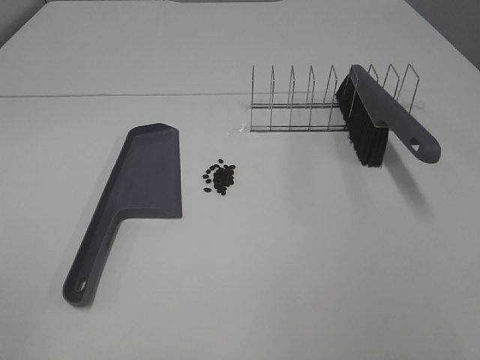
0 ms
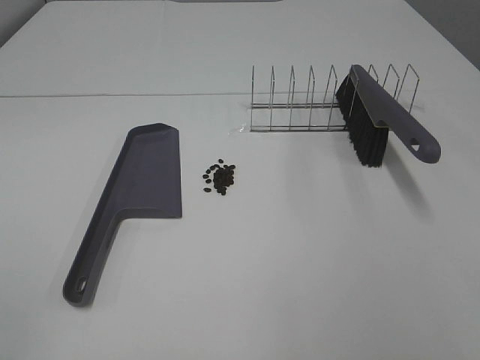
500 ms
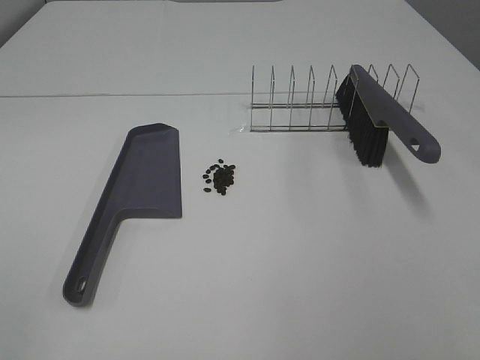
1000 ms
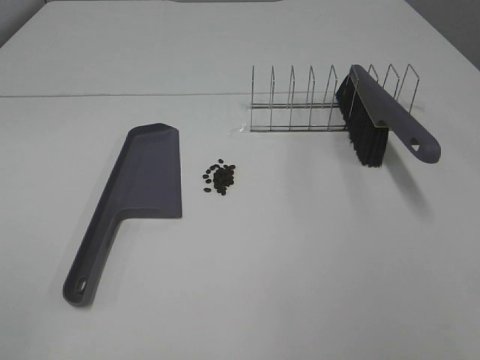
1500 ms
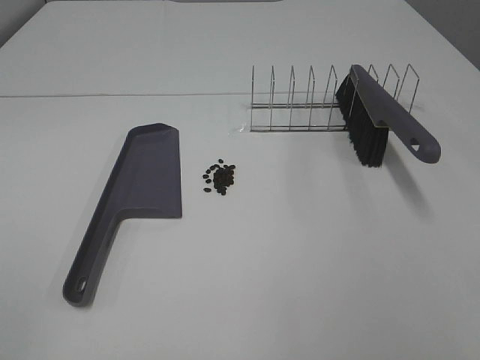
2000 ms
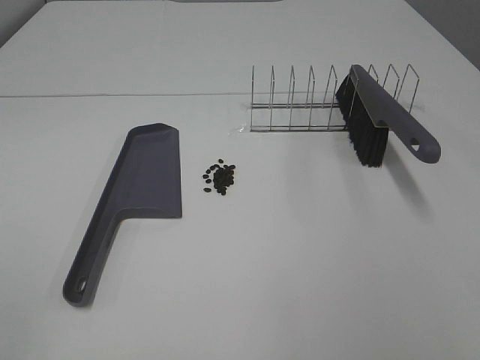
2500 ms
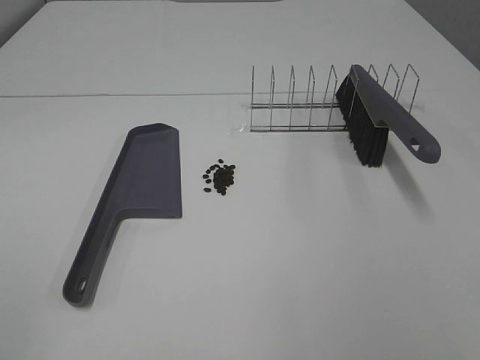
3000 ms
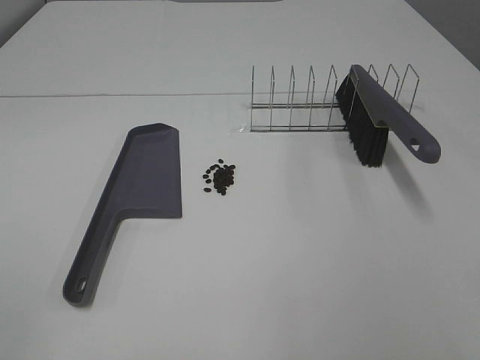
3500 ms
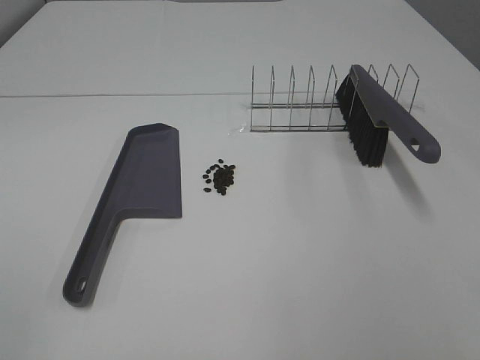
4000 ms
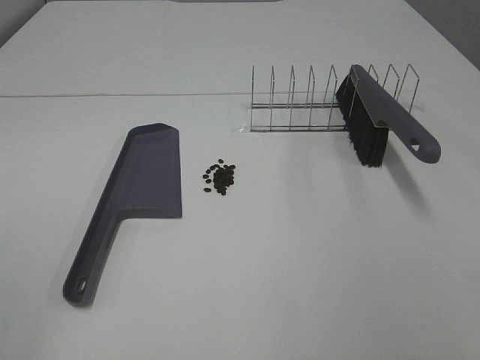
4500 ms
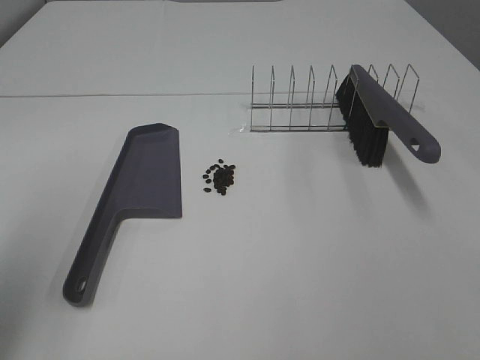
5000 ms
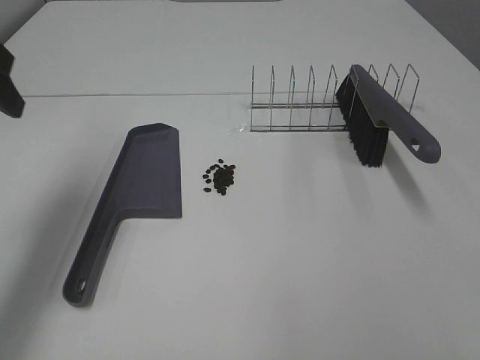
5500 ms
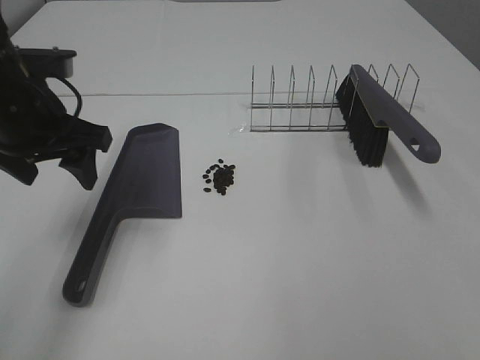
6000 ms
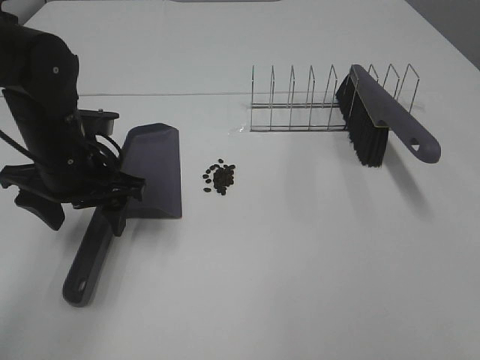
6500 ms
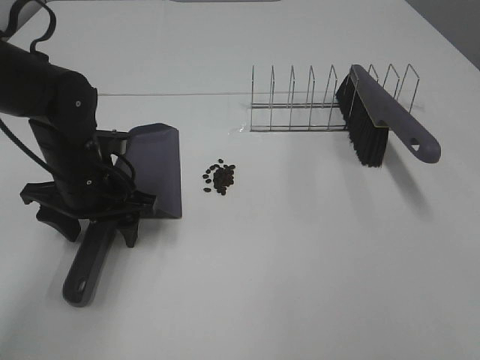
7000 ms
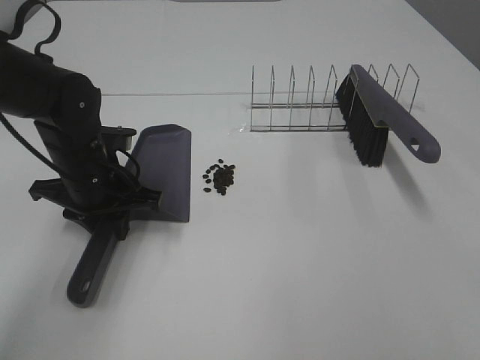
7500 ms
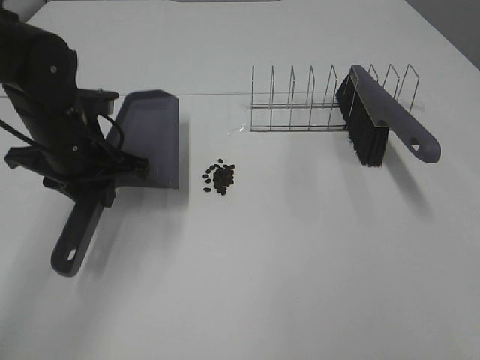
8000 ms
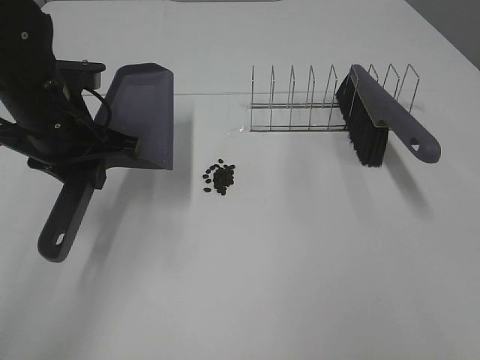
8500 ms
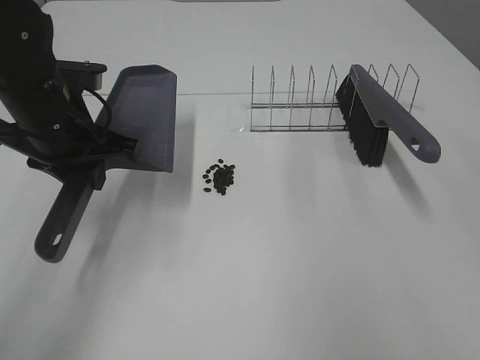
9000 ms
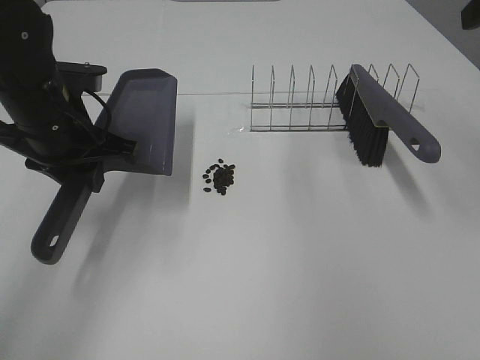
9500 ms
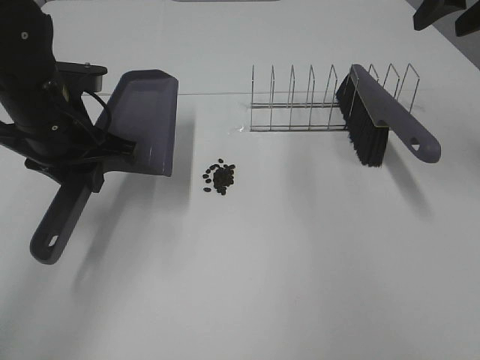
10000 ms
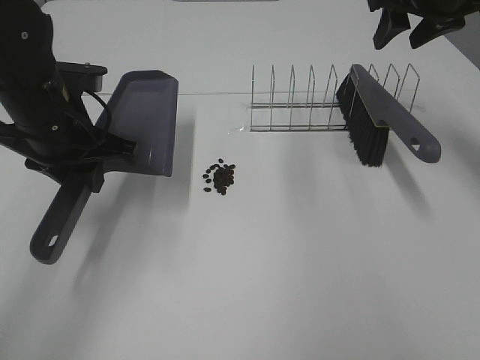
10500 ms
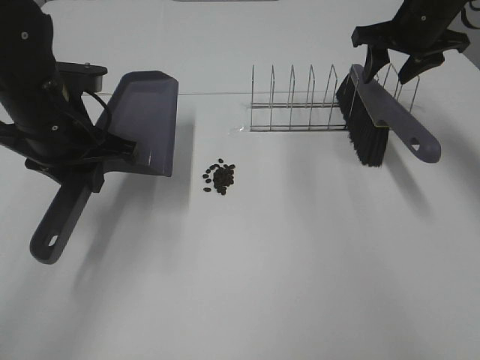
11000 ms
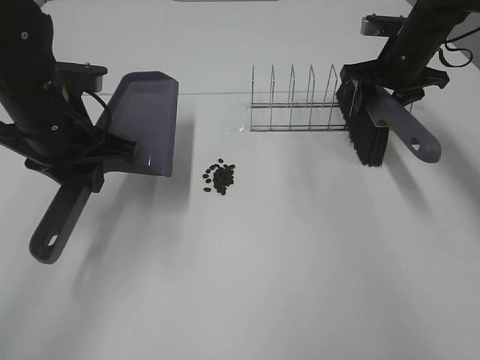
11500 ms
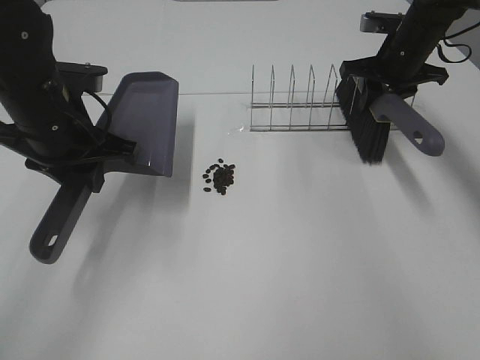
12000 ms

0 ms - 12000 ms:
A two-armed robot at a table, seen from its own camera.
Task of the whole recording: Sweep Coffee Bean.
Step, 0 ms - 7000 ms: Left hand: grab the dustpan.
Step, 8500 ms - 11500 ms: Right hand:grab the broom.
0 ms - 4000 ms: Both grippers stay put.
4000 ms - 6000 ms: The left gripper is displaced forward by about 30 cm.
6000 ms - 8000 ms: The left gripper closes up.
8000 ms - 10000 ms: The right gripper shifts some 40 cm forward.
10000 ms - 12000 ms: The right gripper is displaced downward and forward by roughly 20 cm, and closes.

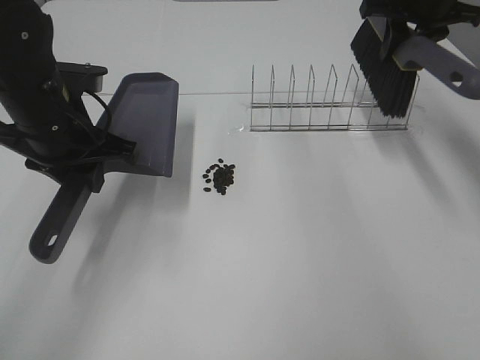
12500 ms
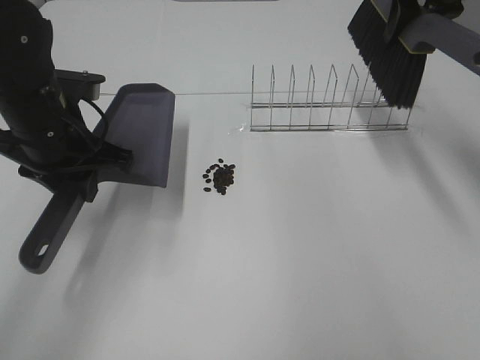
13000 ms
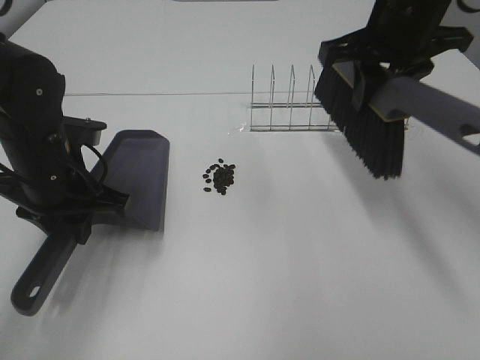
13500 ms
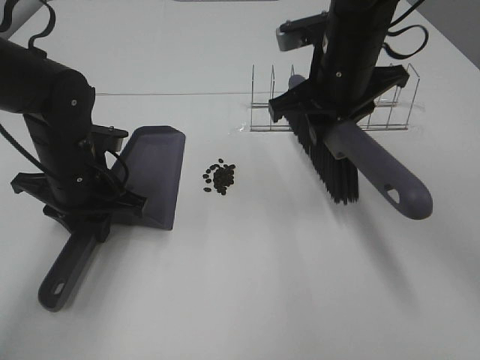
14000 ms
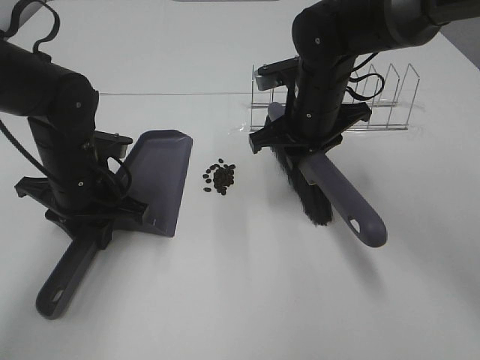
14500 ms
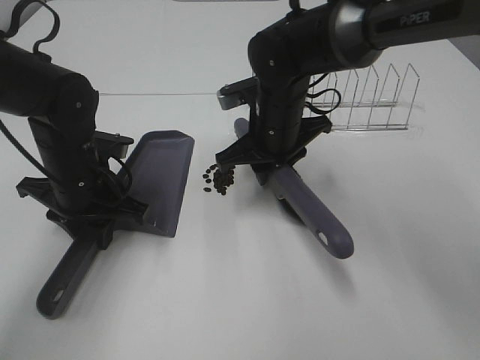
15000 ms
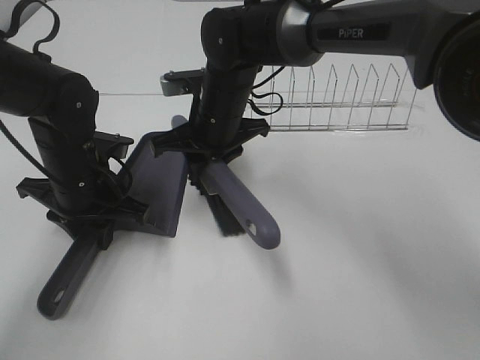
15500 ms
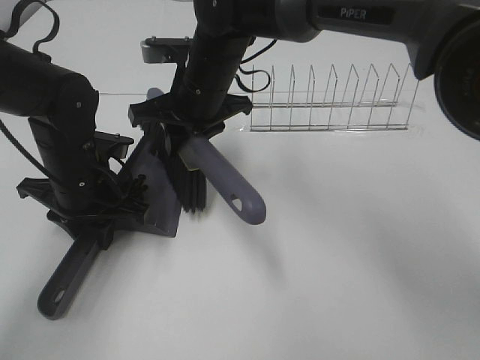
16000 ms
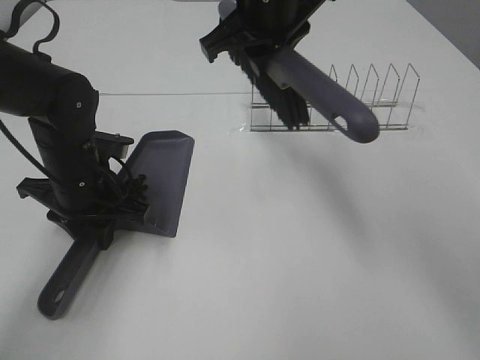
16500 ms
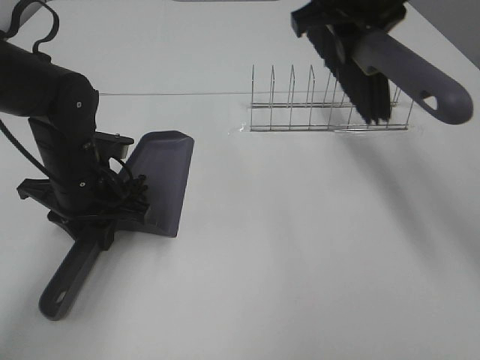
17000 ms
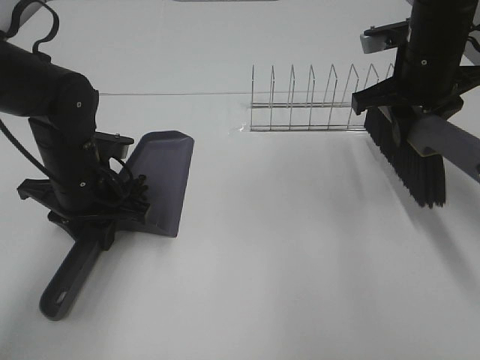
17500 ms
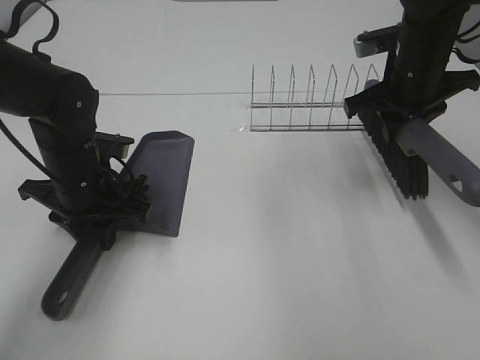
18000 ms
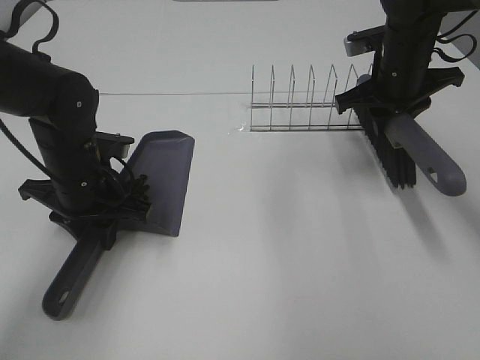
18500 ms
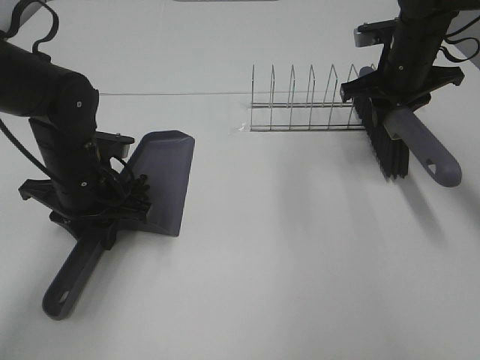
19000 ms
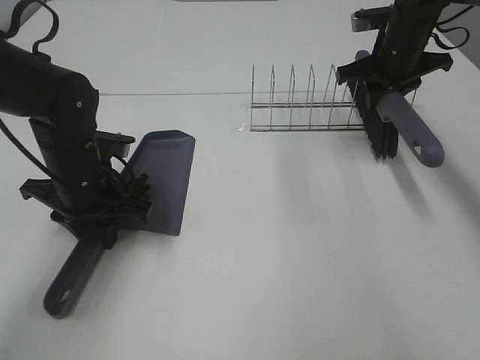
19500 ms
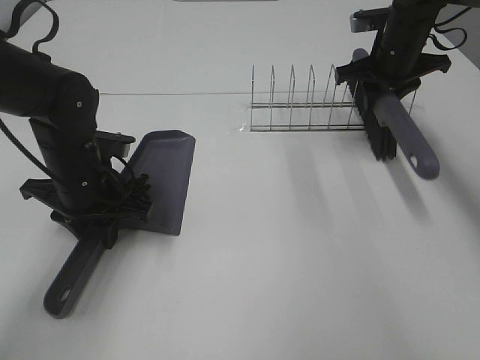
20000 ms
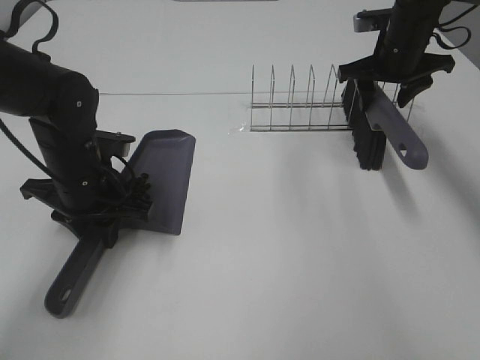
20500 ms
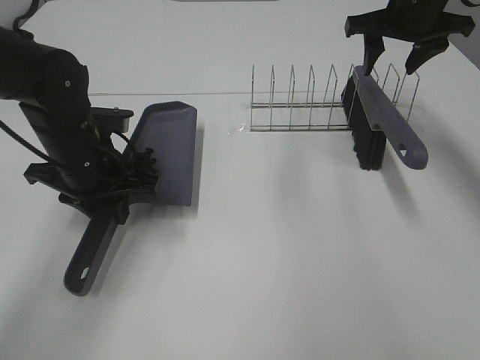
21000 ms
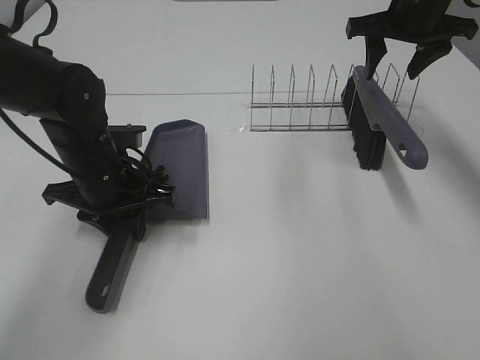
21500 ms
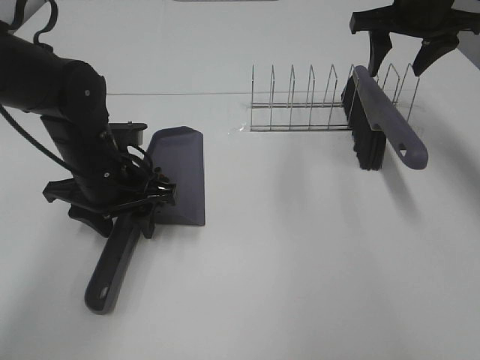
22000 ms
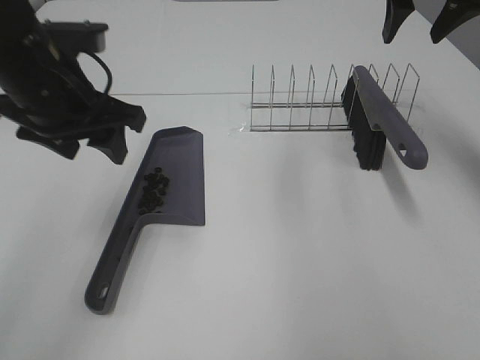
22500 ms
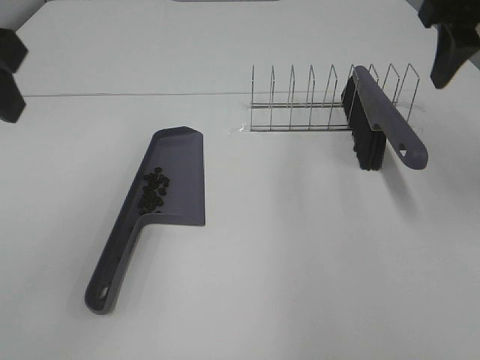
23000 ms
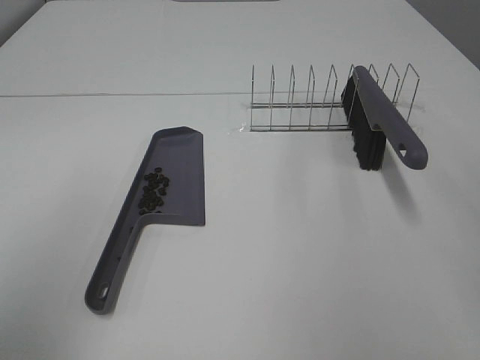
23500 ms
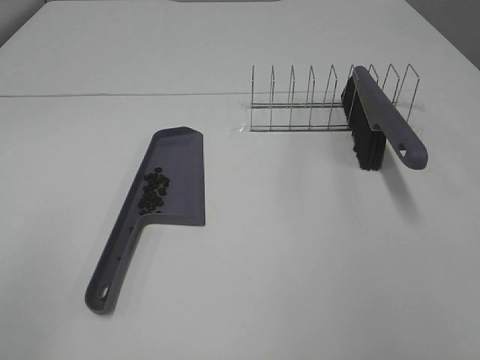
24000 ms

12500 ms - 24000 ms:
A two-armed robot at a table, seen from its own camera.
Task of the whole recording: Sweep Coffee Bean.
Step, 12500 ms - 14500 ms: Left hand: move the dustpan to the left side of the coffee beans.
Step, 12500 ms - 16000 ms: Right hand:sweep the coffee beans into the dustpan.
Step, 16500 ms - 20500 ms: Right hand:place the broom on the rack.
Step, 21000 ms - 22000 ms: Left hand:place the dustpan on the table.
12500 ms - 14500 ms: The left gripper is displaced downward by some 10 cm. The right gripper shifts some 25 cm to the left, downward and backward.
14500 ms - 16500 ms: The right gripper travels upward and to the left by roughly 15 cm.
16500 ms - 18500 ms: The right gripper goes some 20 cm to the right and downward.
18500 ms - 20000 ms: The right gripper shifts some 5 cm forward.
20000 ms - 22000 ms: The left gripper opens; the right gripper travels upward by some 10 cm, and opens its fingers.
22000 ms - 24000 ms: The left gripper moves backward, upward and to the left, approximately 35 cm. The right gripper goes roughly 40 cm backward.

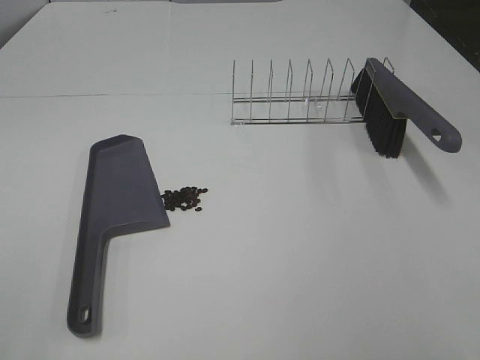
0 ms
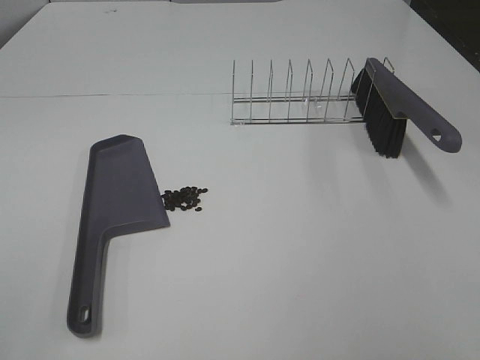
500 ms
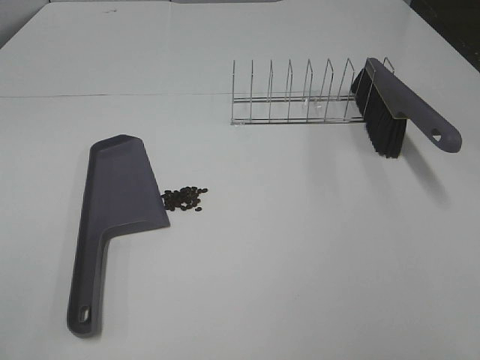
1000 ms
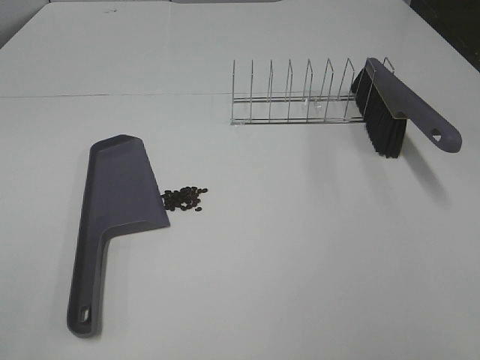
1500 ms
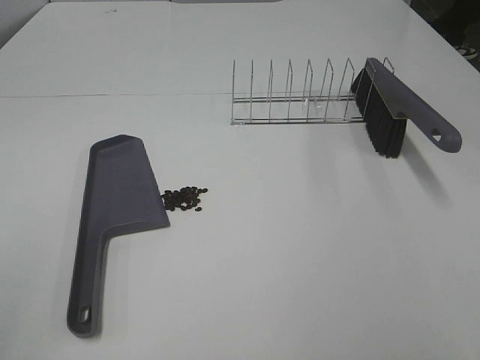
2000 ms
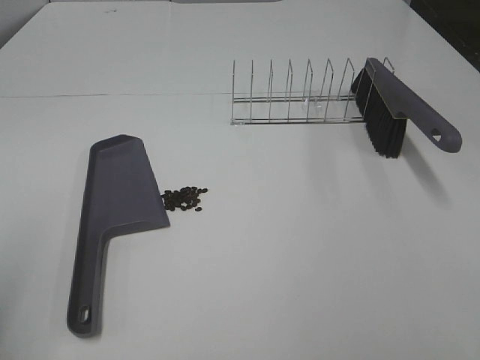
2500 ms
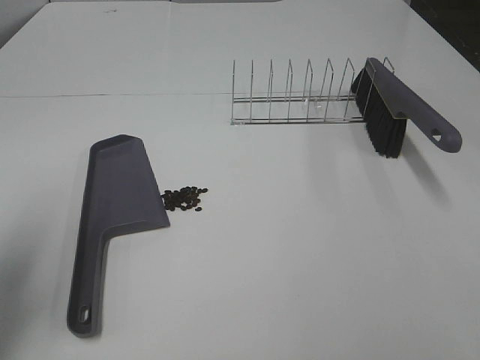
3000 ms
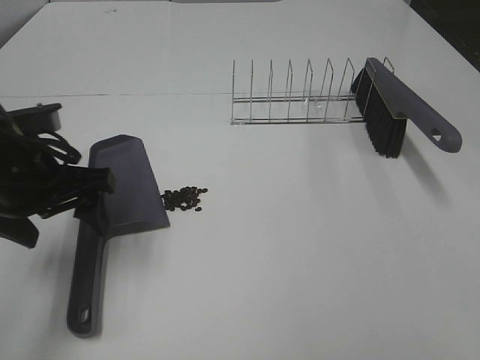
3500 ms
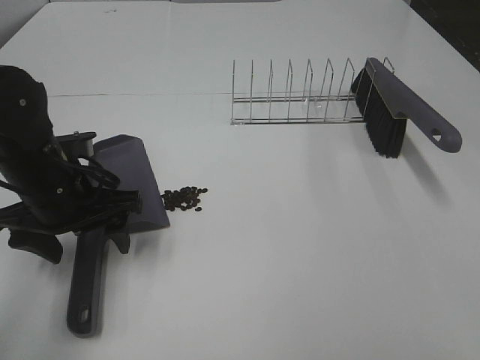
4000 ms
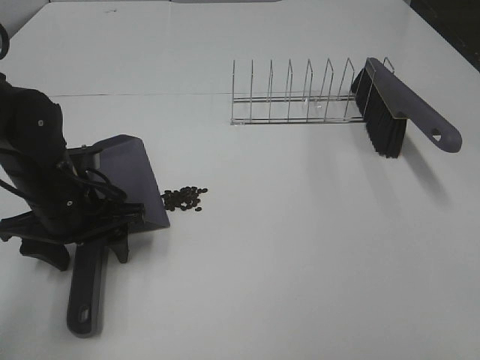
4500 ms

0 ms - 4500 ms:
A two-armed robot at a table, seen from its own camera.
Task of the whole recording: Sweep Coffee Bean.
2000 ms - 4500 ms: The left gripper goes some 35 cm forward, downward and to the right.
